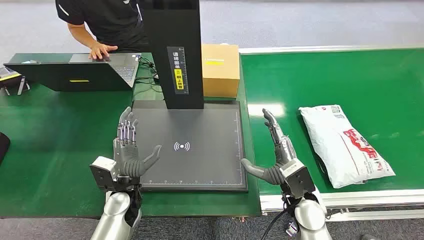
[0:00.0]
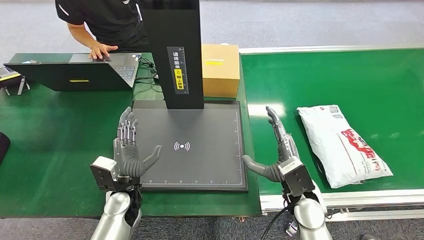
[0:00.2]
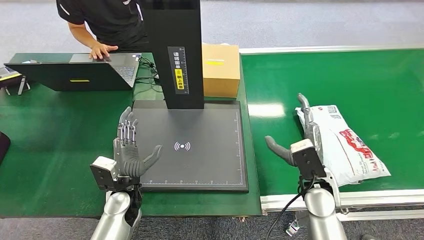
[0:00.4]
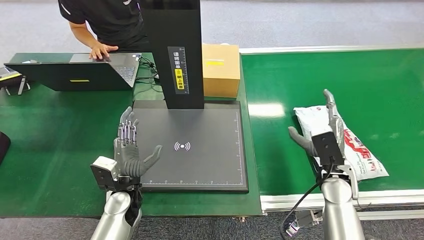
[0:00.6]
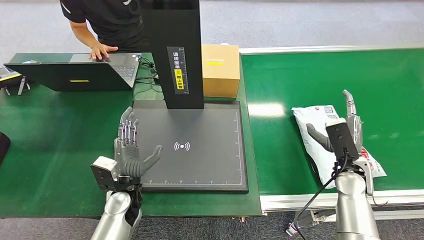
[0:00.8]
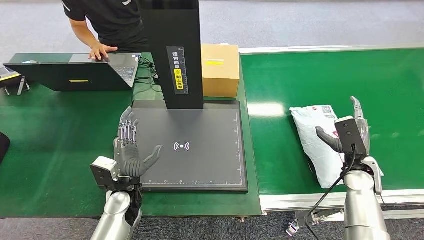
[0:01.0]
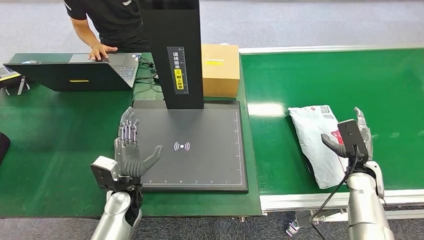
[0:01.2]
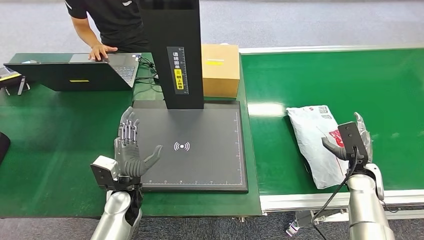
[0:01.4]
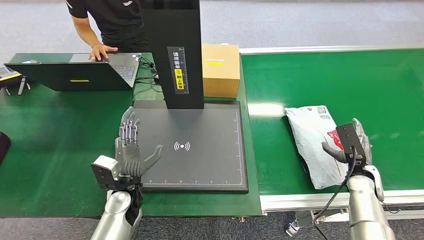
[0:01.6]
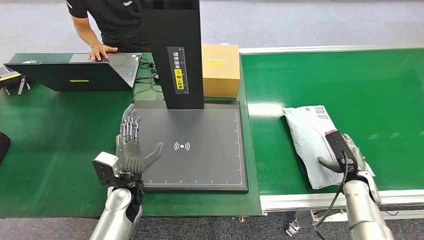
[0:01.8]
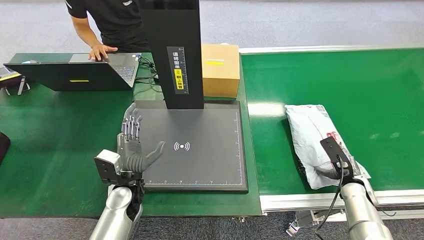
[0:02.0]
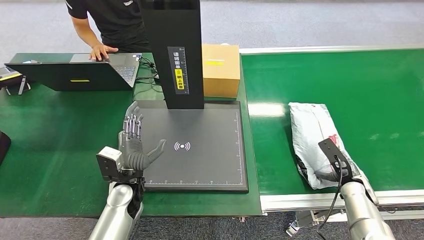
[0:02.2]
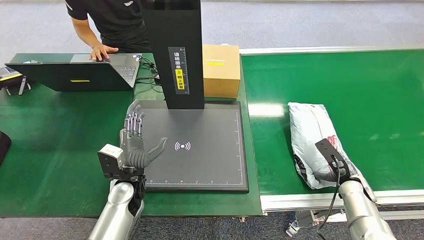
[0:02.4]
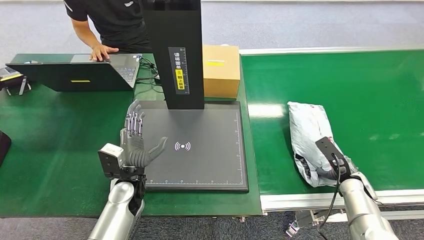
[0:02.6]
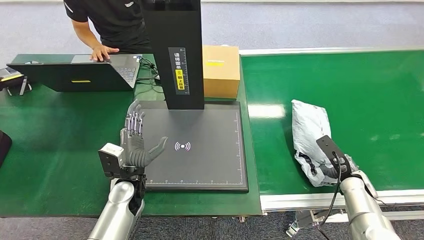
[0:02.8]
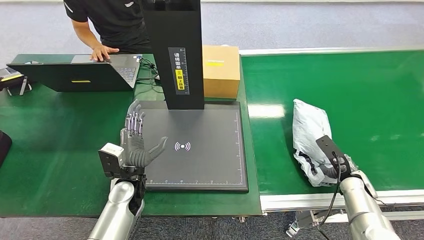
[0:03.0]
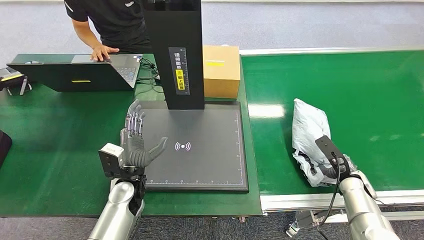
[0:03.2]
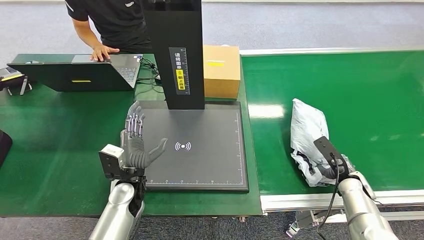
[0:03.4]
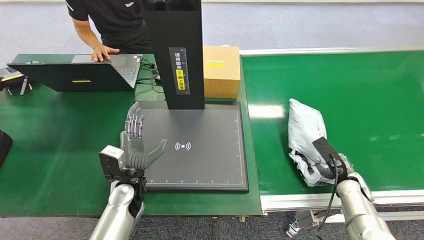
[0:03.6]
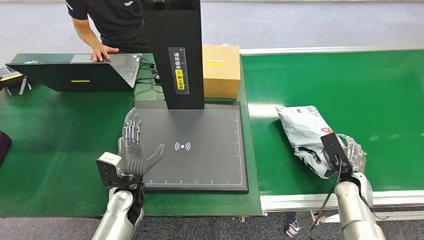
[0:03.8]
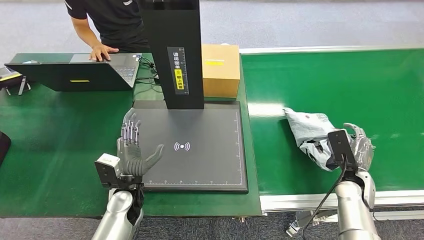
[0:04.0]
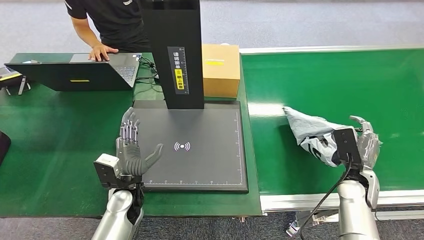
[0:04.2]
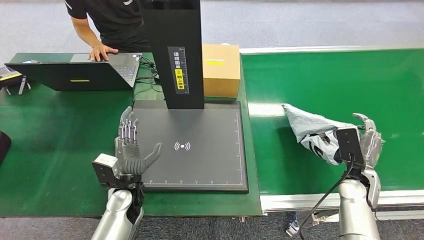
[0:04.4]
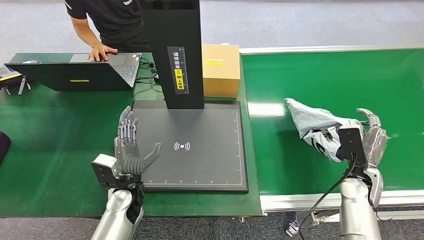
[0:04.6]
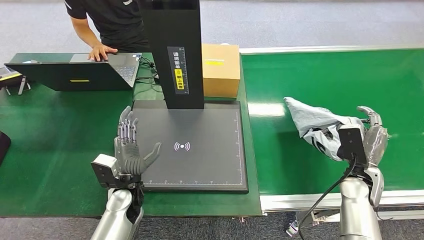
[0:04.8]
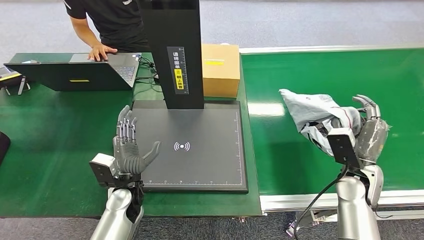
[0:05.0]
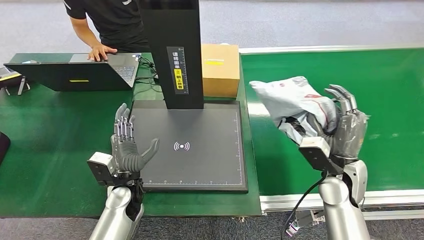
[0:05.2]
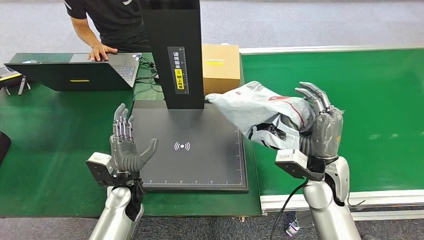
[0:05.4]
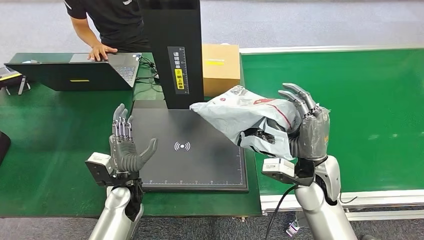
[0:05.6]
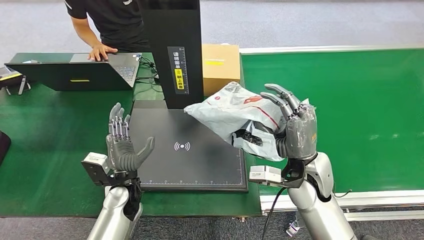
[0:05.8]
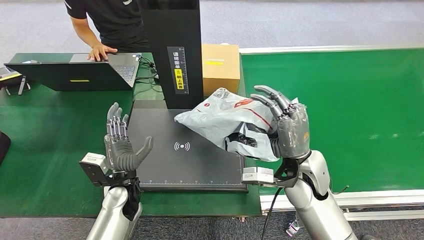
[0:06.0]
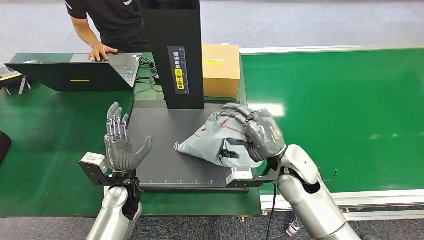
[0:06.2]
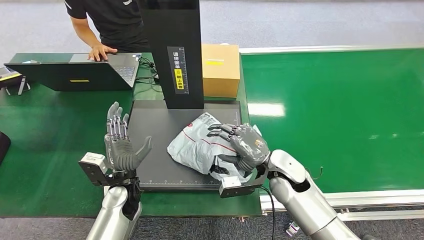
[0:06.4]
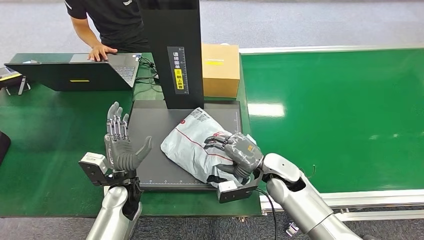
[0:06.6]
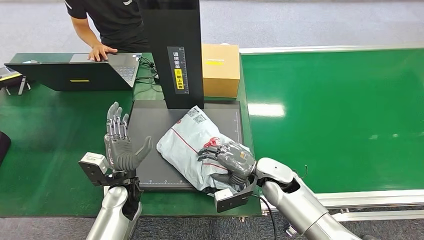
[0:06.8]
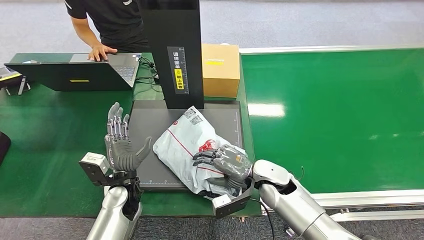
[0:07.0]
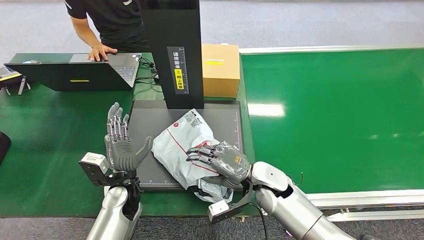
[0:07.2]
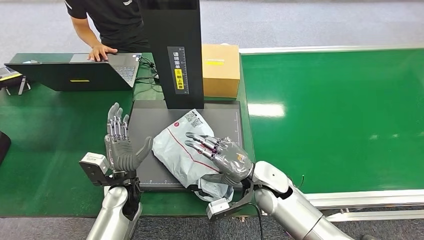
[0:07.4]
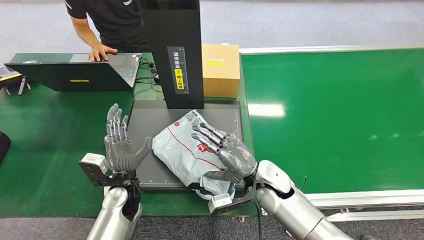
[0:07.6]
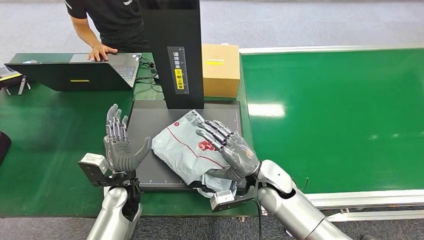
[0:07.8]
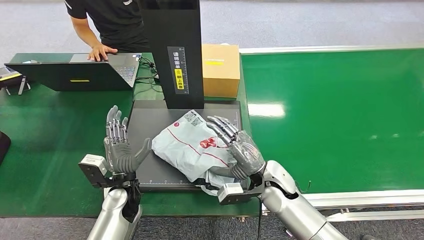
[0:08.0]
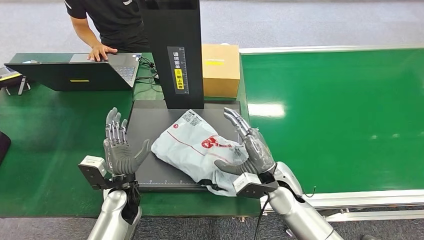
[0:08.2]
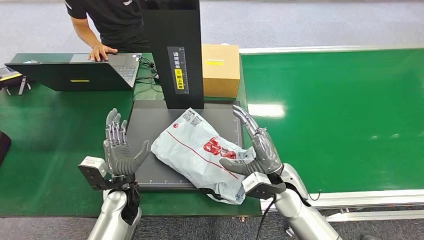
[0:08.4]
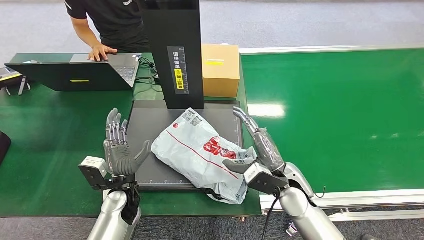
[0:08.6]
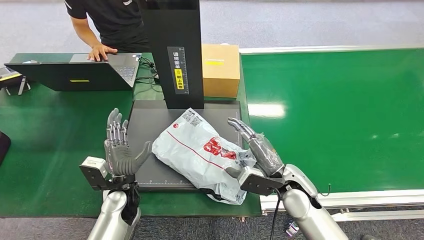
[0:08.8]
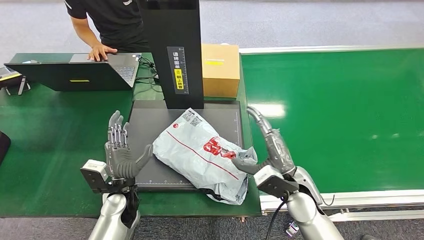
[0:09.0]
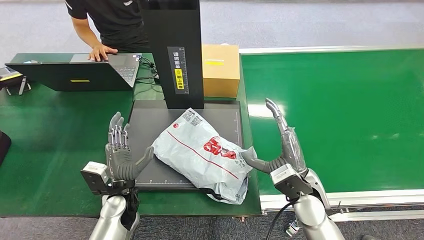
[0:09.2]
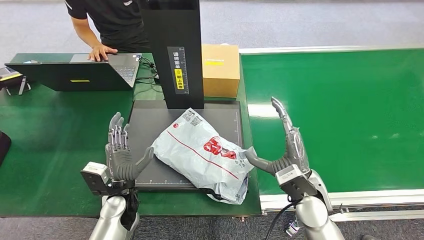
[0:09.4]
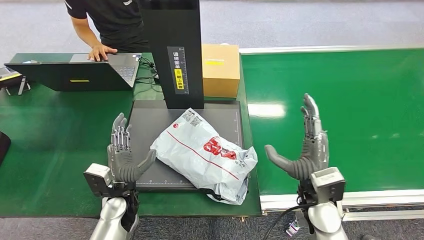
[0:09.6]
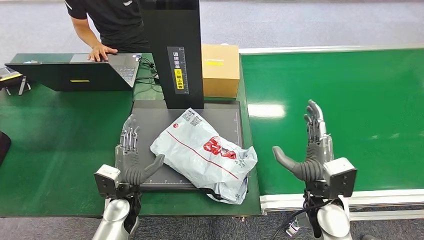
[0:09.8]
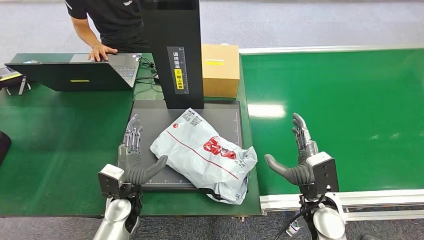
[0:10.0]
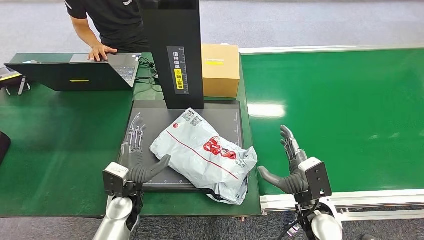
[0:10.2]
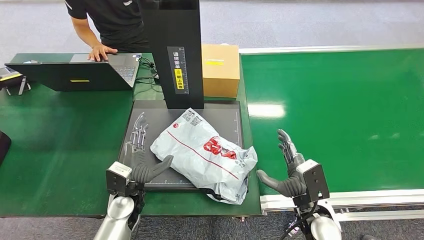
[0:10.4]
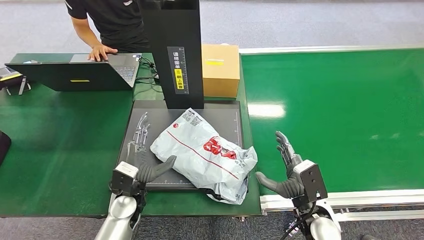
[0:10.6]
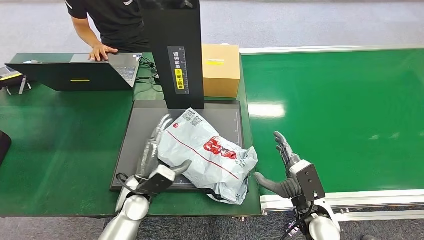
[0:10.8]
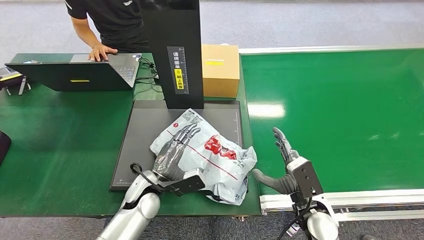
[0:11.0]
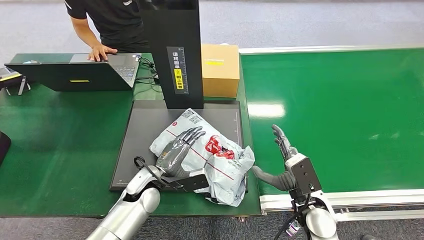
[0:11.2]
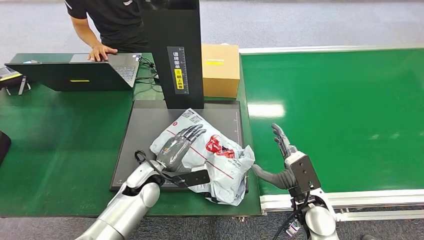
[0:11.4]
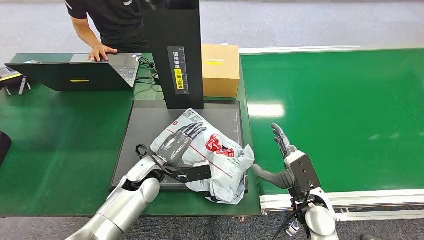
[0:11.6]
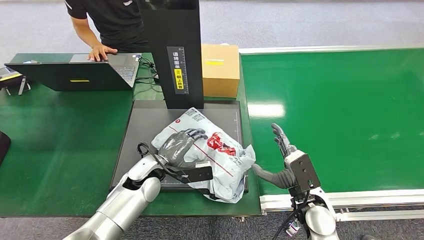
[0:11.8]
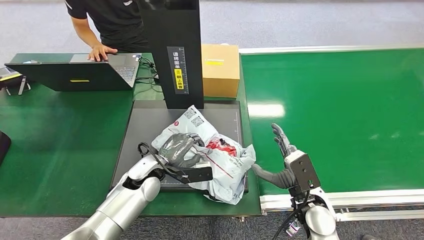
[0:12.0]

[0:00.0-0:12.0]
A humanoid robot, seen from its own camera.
Task of the whole recording: Weigh the package on the weighing device and place it in the left basket.
Step, 0:00.0 to 0:05.0: Pick up the package from the conveyor belt.
Step, 0:05.2 to 0:08.6: Place the package onto the inbound machine.
0:03.0 to 0:04.4: The right hand moves upward, roughly 5 cm.
0:06.0 to 0:07.6: The right hand shifts about 10 cm downward and to the left.
0:07.6 to 0:09.0: The right hand heads to the right, covering roughly 5 cm.
0:09.0 to 0:10.4: The right hand heads backward, covering approximately 5 cm.
0:10.4 to 0:12.0: The left hand travels forward by approximately 5 cm.

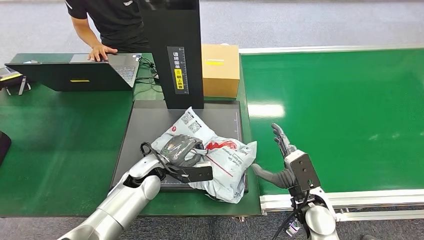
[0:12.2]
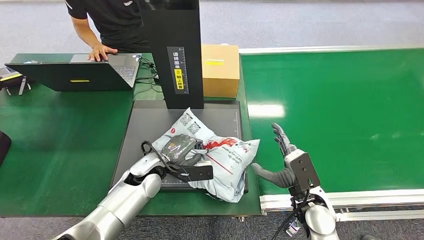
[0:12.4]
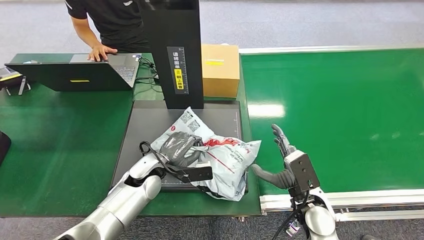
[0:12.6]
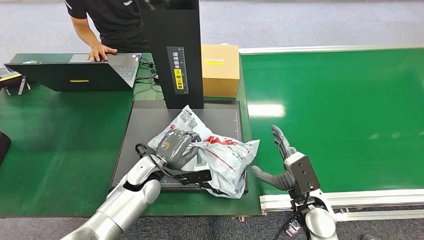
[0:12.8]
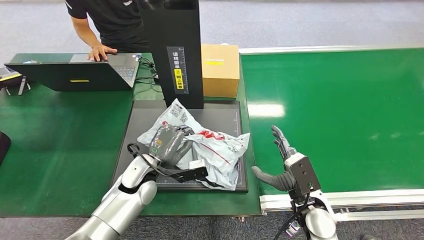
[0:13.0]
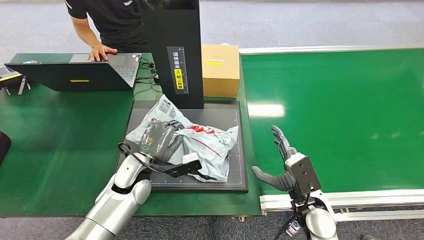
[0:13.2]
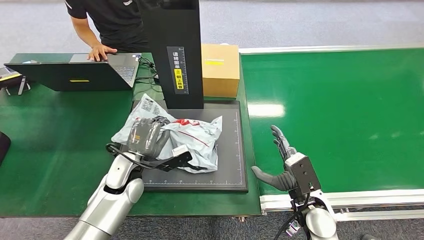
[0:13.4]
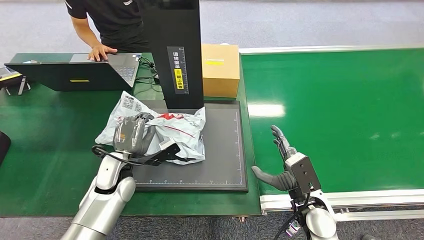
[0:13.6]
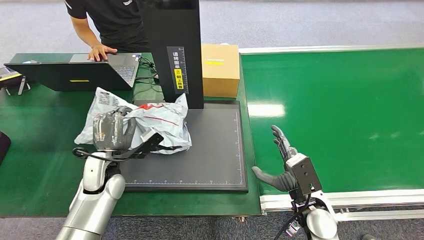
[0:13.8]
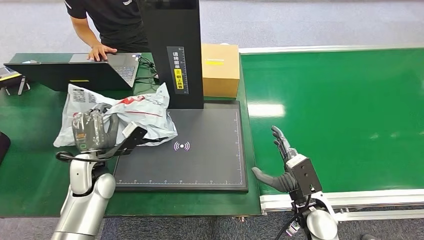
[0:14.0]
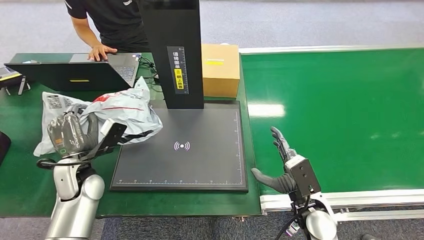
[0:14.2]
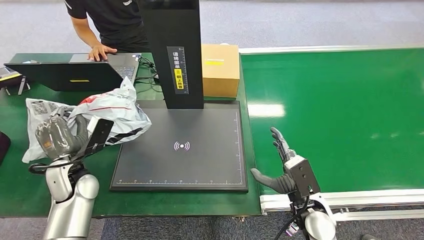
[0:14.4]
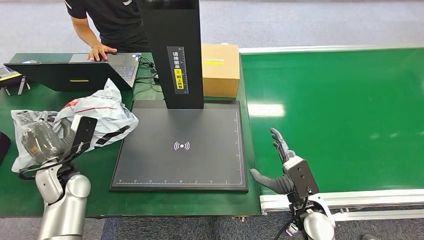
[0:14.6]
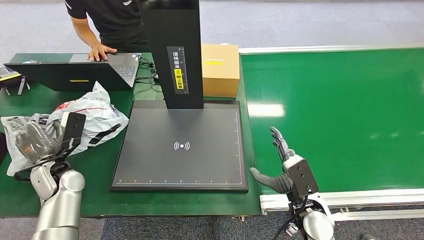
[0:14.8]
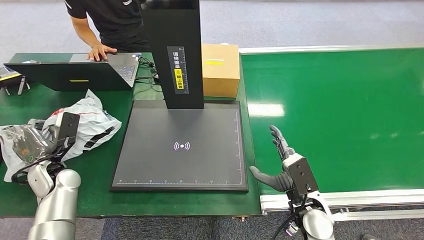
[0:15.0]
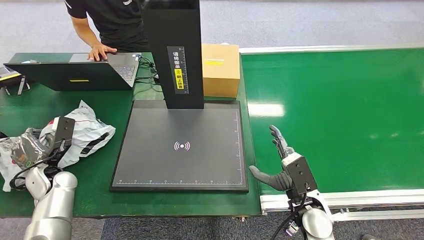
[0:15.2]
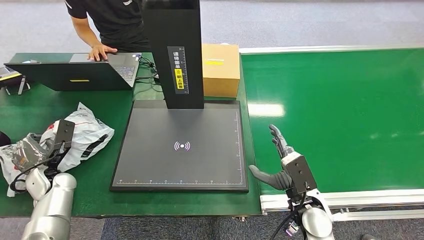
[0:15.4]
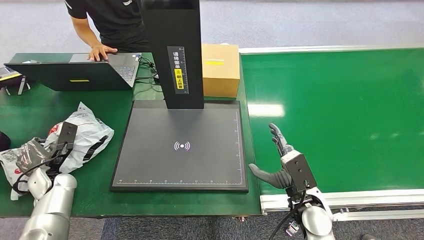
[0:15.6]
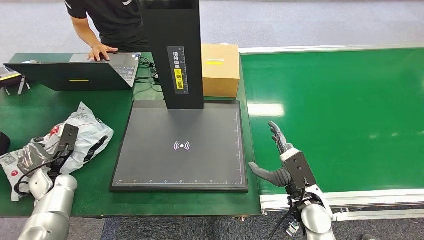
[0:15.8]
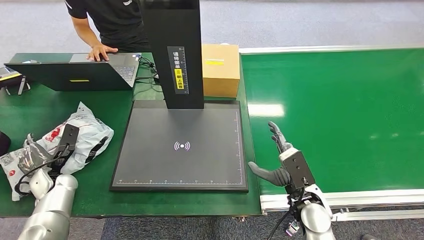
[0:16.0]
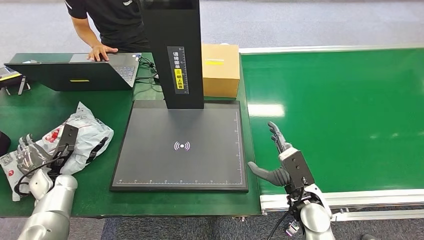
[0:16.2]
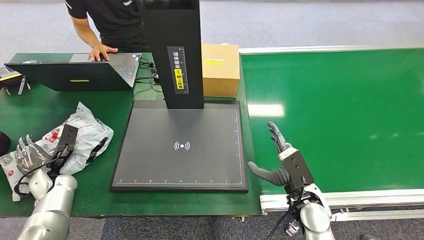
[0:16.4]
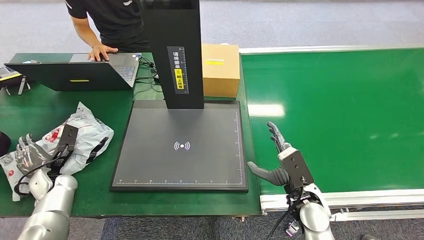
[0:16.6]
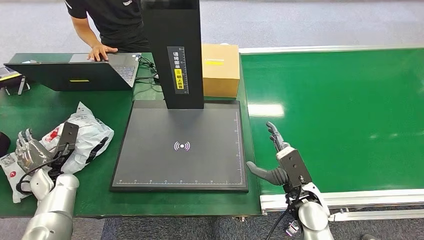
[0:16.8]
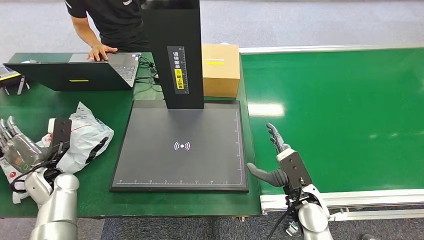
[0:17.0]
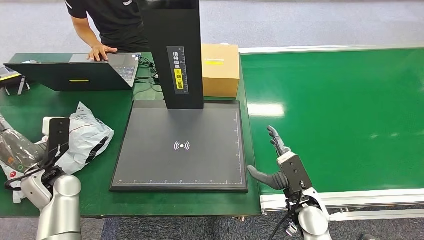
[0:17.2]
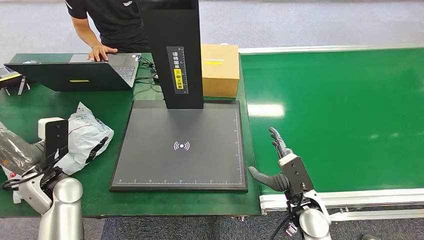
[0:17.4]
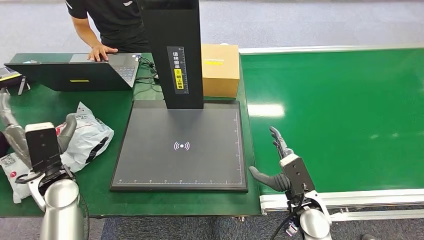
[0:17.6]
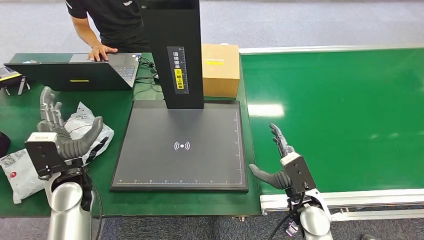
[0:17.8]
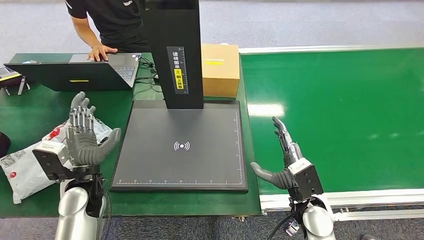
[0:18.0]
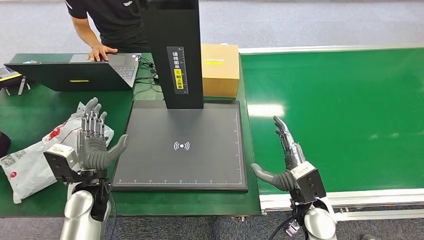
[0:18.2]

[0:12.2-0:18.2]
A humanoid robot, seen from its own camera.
Task of the whole recording: Weigh the package on the weighing device and place it in the left basket.
Step, 0:12.2 to 0:14.2: Pick up the package from the inbound machine.
Step, 0:14.4 to 0:18.2: Place the package into the parcel locker.
0:12.2 to 0:13.8: The left hand moves to the left, about 10 cm.
0:13.8 to 0:15.2: The left hand goes roughly 15 cm to the left.
0:15.2 to 0:16.6: The hands move only a little.
0:16.6 to 0:18.2: The left hand is displaced to the right by some 15 cm.
